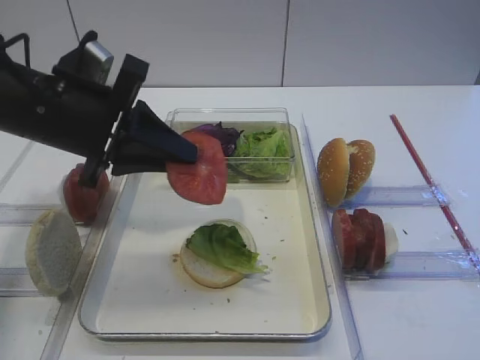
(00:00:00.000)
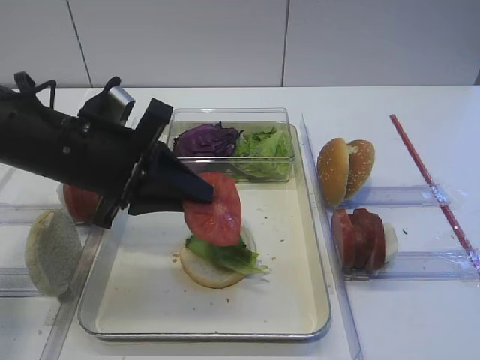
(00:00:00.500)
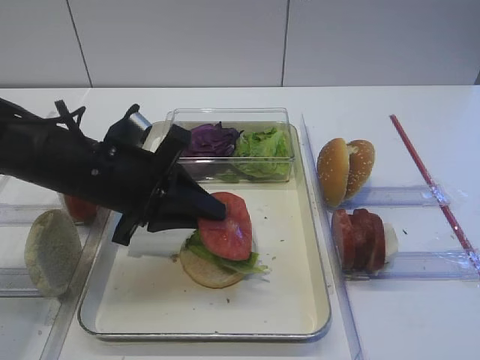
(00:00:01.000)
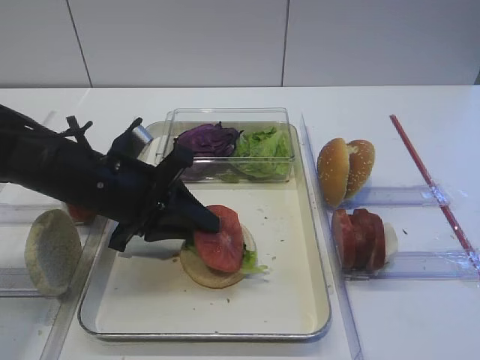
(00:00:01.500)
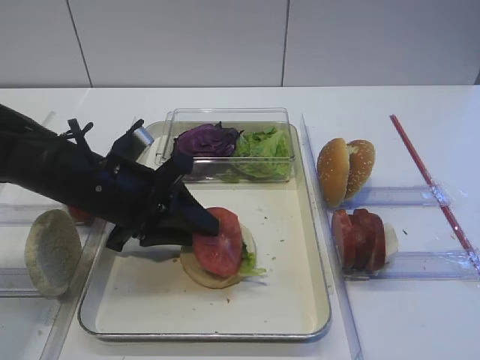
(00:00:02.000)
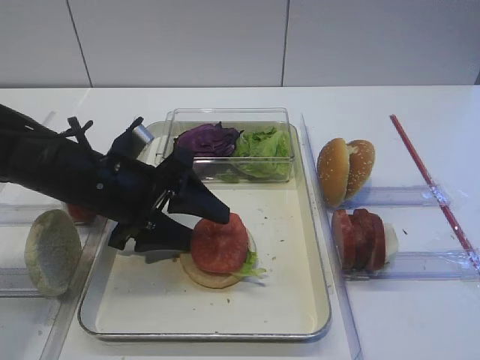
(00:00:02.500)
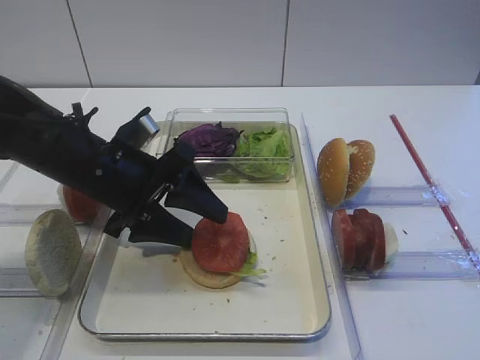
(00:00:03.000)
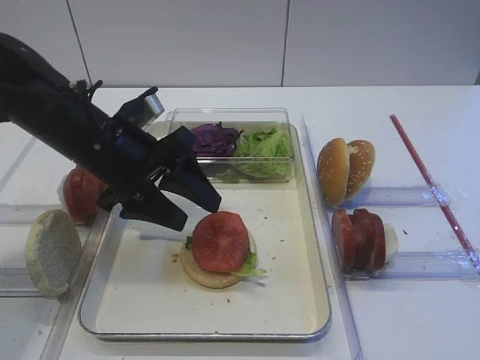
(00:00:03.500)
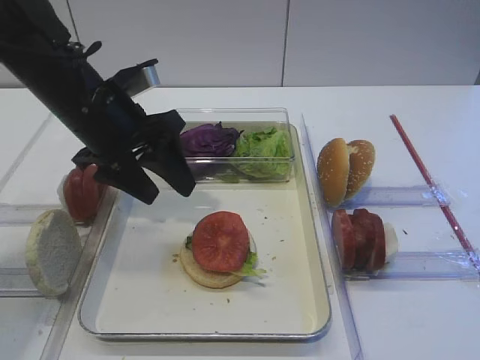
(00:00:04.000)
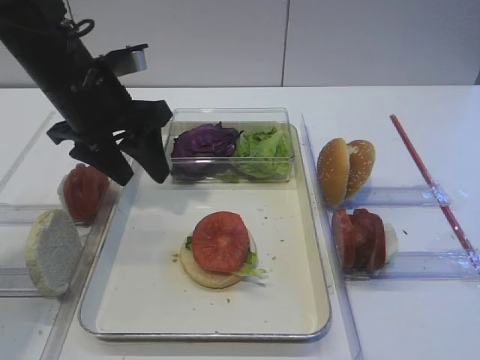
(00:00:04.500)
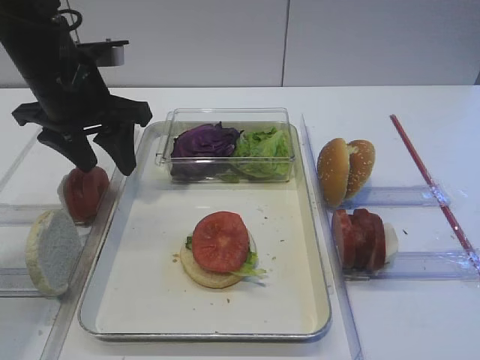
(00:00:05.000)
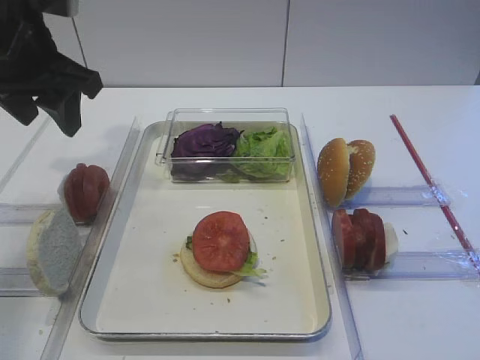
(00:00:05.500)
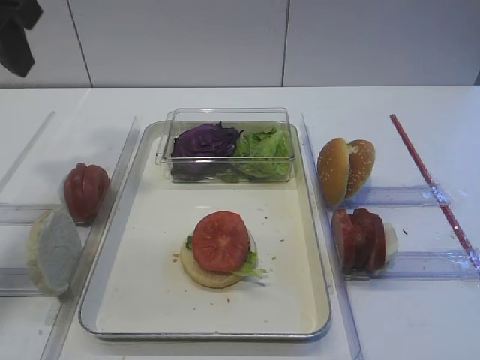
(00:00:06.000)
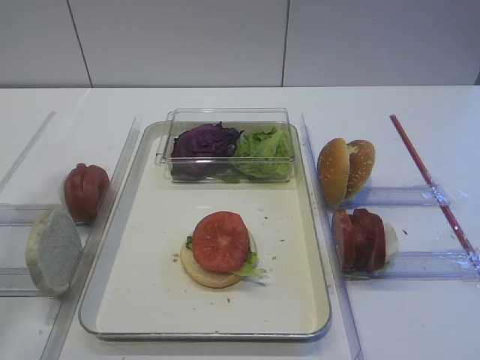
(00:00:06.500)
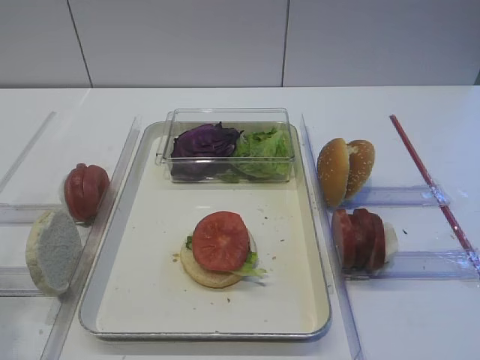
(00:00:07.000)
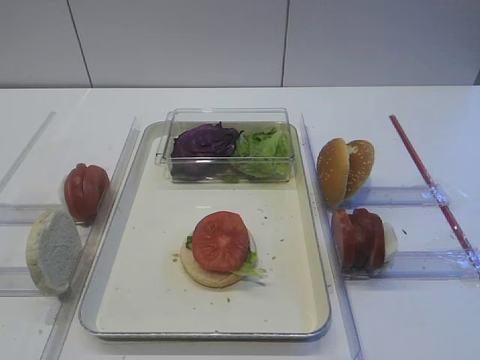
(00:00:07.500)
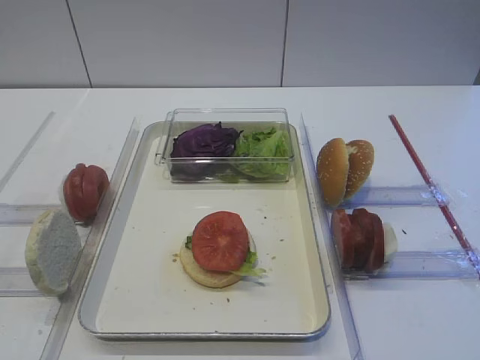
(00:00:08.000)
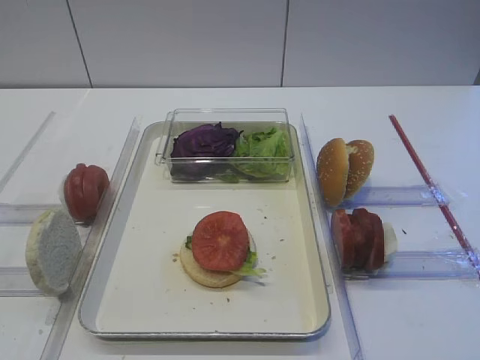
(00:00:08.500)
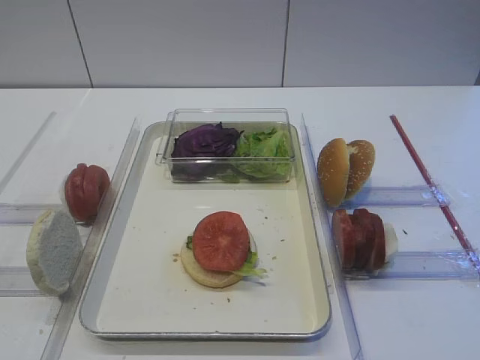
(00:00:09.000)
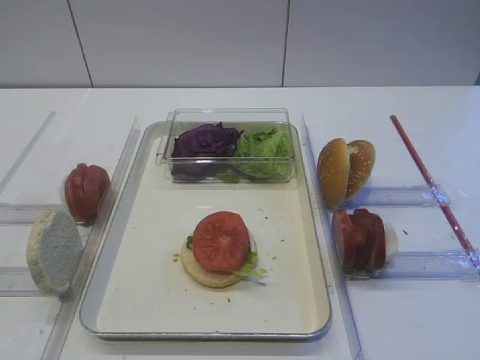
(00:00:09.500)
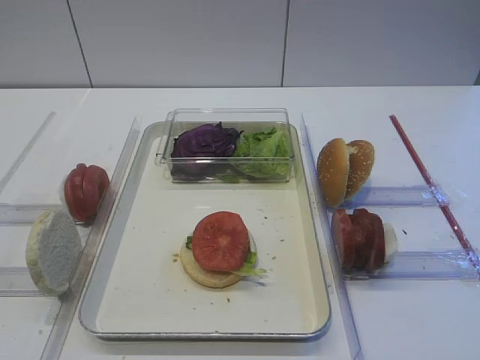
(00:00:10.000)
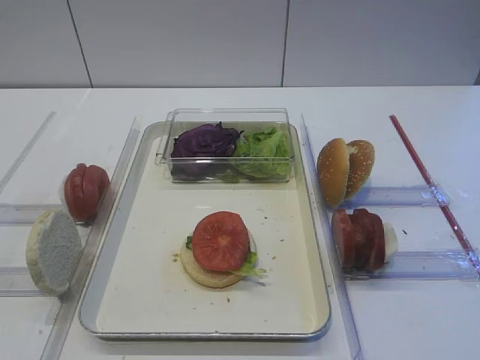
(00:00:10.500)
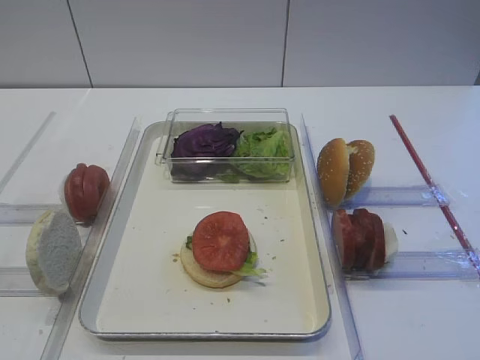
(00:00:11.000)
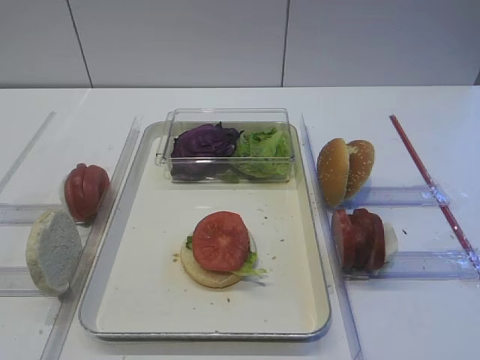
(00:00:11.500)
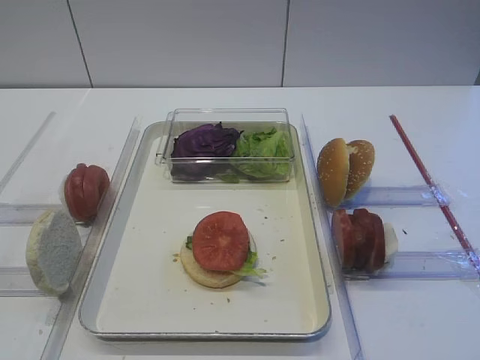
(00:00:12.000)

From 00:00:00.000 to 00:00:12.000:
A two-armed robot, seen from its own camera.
Step, from 00:00:00.000 to 00:00:02.500: Place the tomato slice on the lettuce leaf with the left gripper.
From 00:00:00.000 to 00:00:02.000: The left gripper moves downward, roughly 10 cm.
From 00:00:02.000 to 00:00:04.000: The left gripper travels upward by some 5 cm, and opens.
From 00:00:04.000 to 00:00:06.000: The left gripper is displaced upward and to the left by roughly 20 cm.
From 00:00:06.000 to 00:00:08.000: The left gripper is displaced backward and downward by roughly 30 cm.

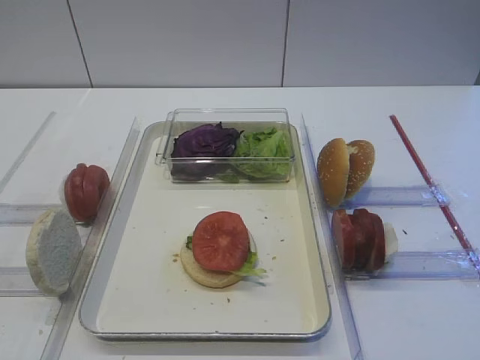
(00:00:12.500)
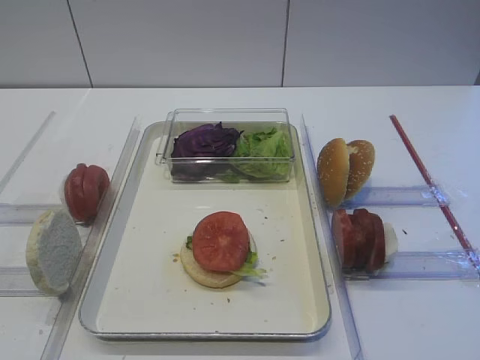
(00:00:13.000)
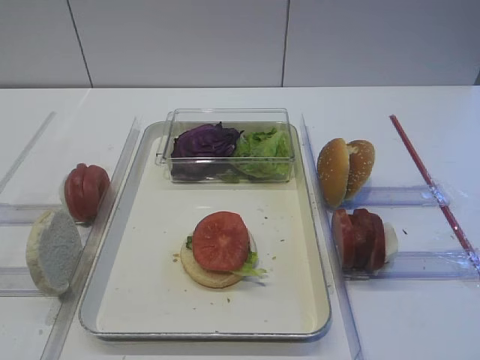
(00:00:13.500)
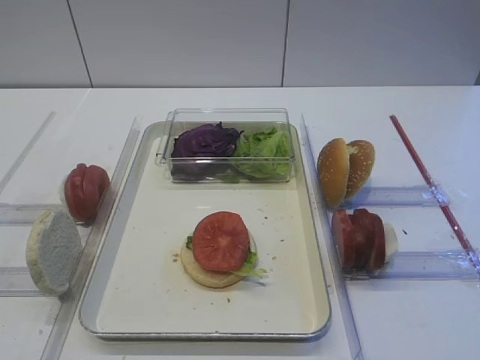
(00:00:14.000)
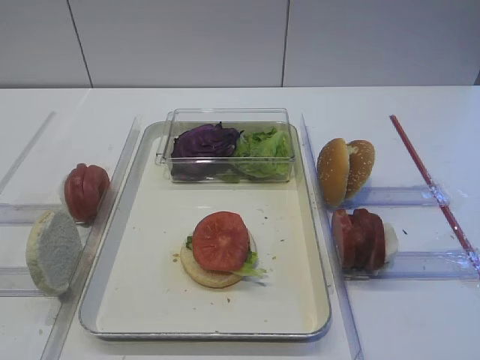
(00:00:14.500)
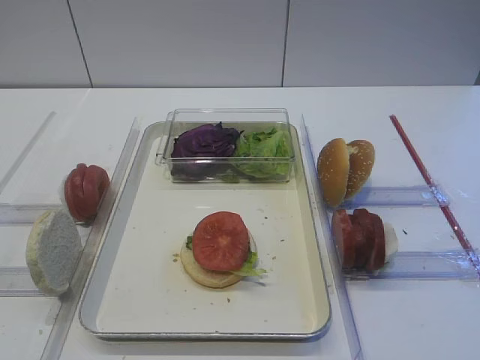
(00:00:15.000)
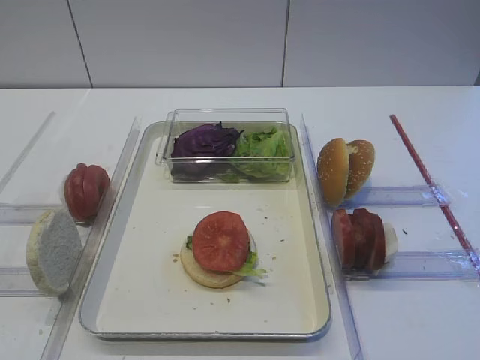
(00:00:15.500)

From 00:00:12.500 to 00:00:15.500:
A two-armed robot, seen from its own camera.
From 00:00:12.500 to 00:00:15.500: Neither gripper changes place.

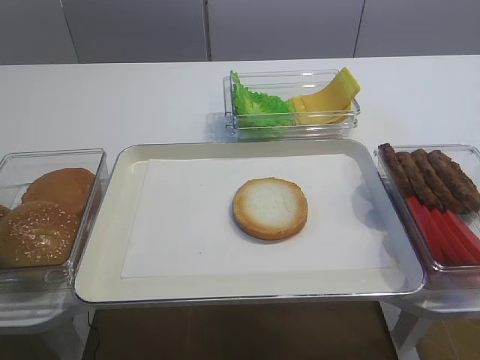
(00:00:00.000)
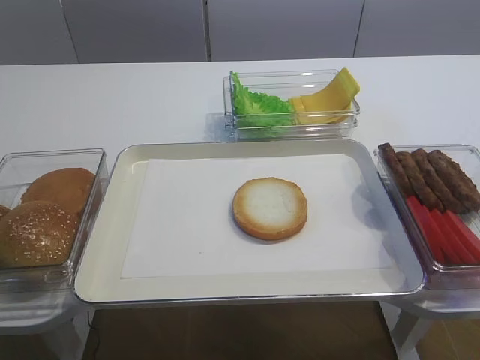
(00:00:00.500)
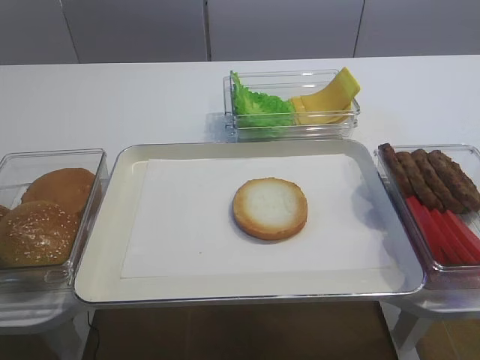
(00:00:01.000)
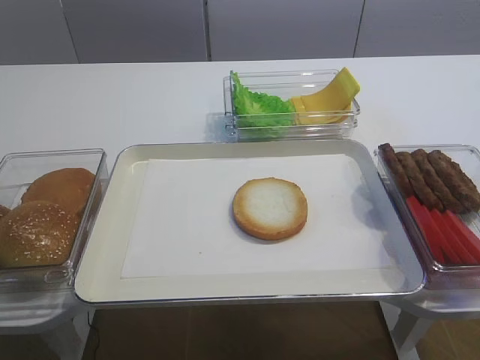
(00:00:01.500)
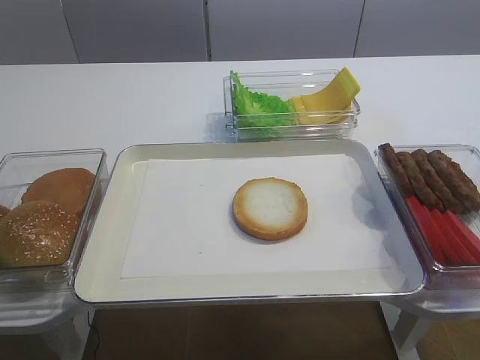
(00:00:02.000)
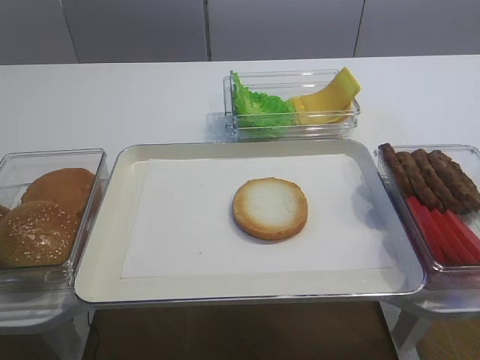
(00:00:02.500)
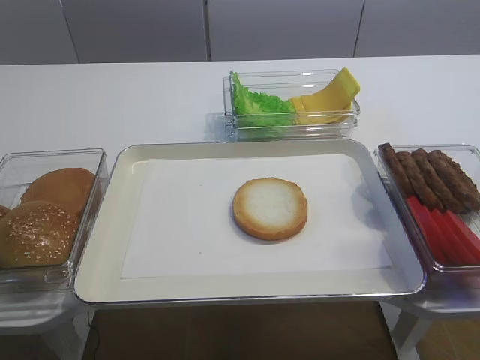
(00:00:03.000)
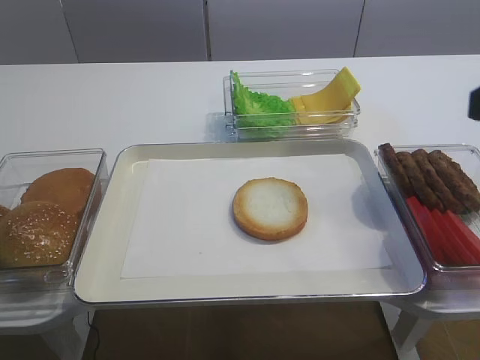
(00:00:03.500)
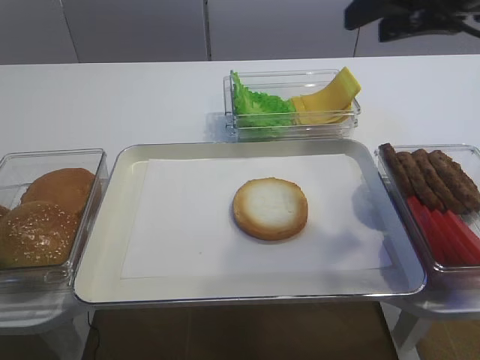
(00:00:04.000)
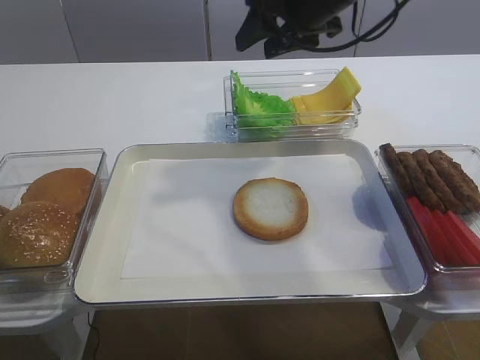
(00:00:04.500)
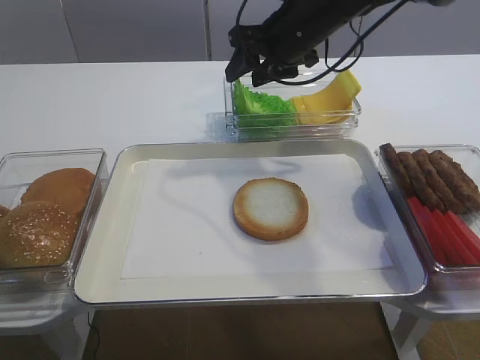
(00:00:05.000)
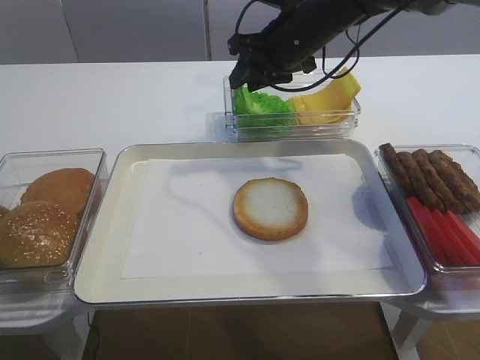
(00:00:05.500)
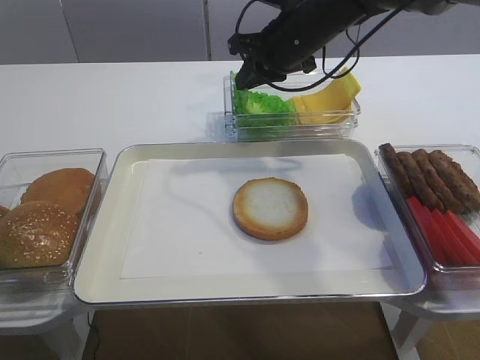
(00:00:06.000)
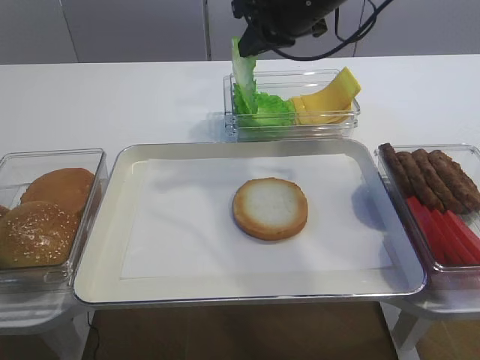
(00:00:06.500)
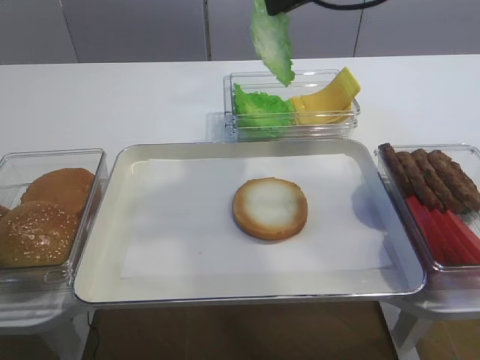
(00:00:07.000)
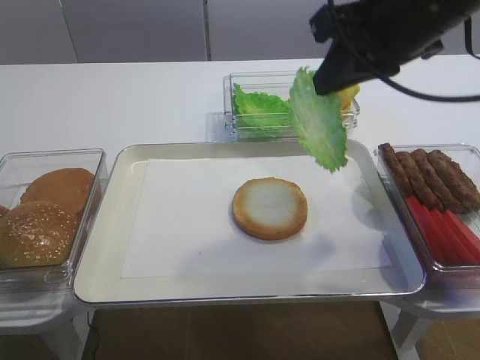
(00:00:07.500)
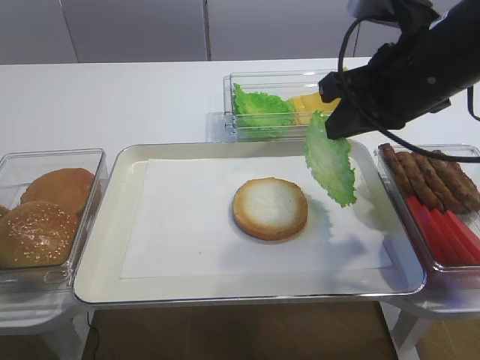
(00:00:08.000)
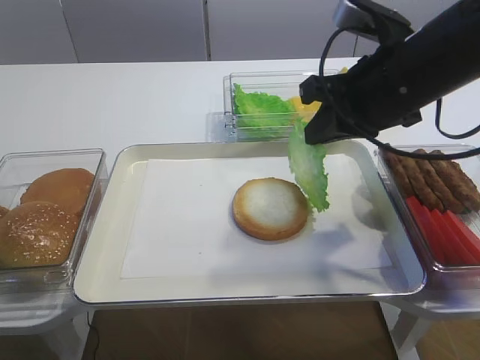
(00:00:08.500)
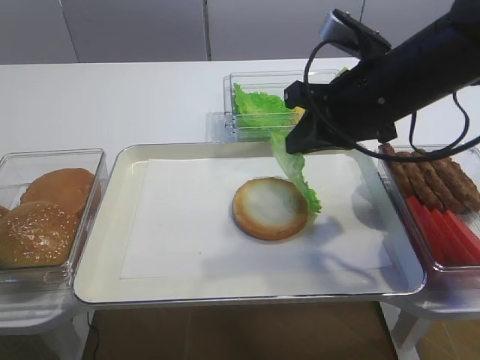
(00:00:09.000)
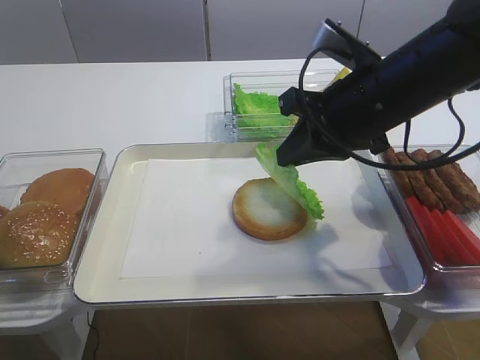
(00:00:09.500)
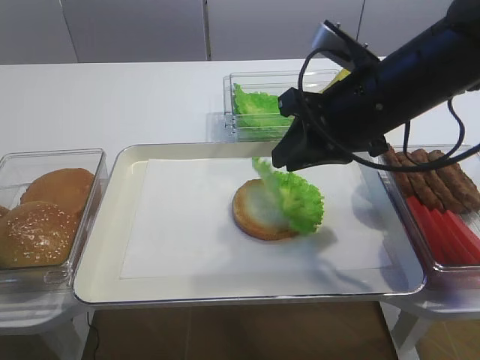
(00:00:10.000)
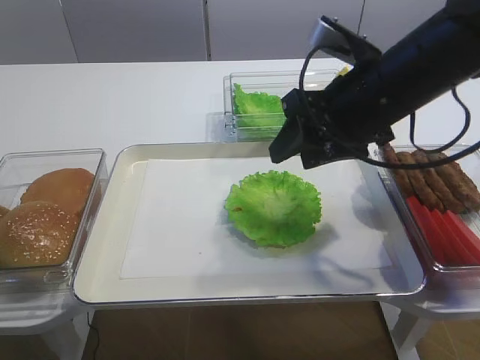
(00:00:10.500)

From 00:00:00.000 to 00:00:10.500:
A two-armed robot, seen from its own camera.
Step, from 00:00:00.000 to 00:00:07.000: Pick up the lettuce leaf with the right gripper.
From 00:00:02.000 to 00:00:04.000: The right gripper goes roughly 30 cm forward, and opens.
From 00:00:04.000 to 00:00:06.500: The right gripper shifts some 20 cm forward, to the left and downward, and closes its fingers.
From 00:00:06.500 to 00:00:08.500: The right gripper travels backward by roughly 15 cm.
From 00:00:08.500 to 00:00:10.500: The right gripper opens up.
